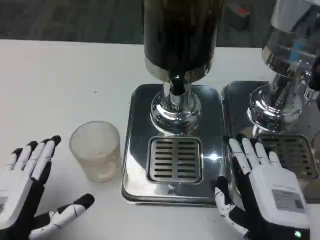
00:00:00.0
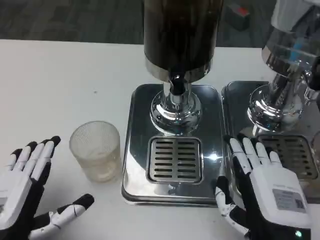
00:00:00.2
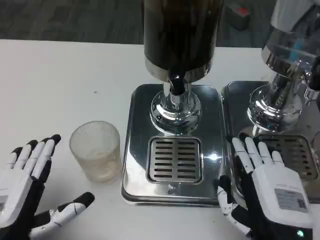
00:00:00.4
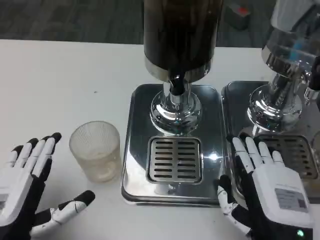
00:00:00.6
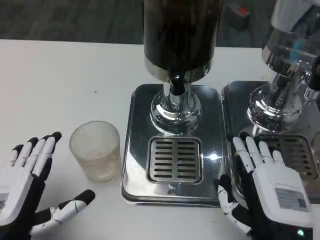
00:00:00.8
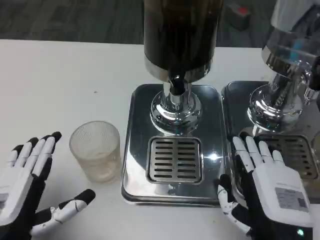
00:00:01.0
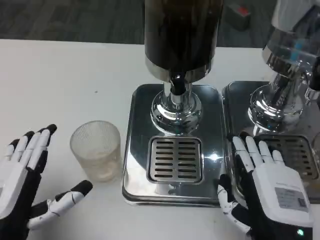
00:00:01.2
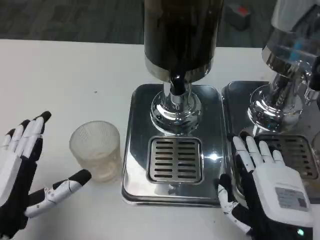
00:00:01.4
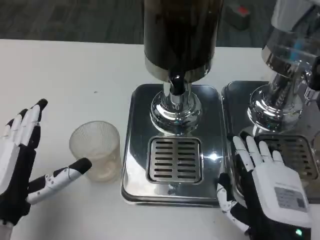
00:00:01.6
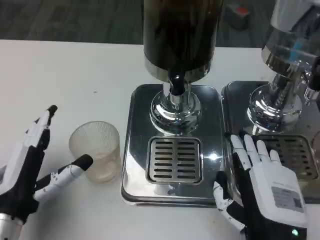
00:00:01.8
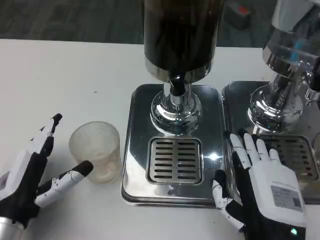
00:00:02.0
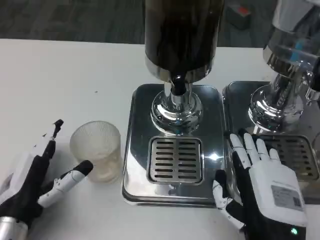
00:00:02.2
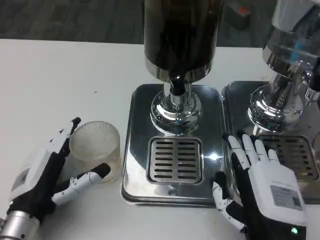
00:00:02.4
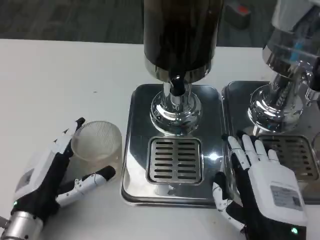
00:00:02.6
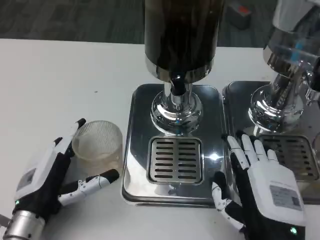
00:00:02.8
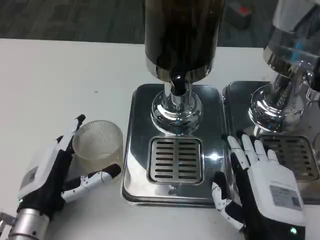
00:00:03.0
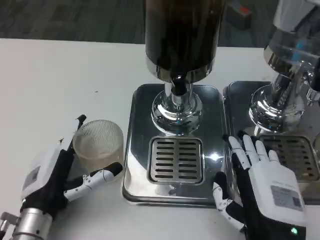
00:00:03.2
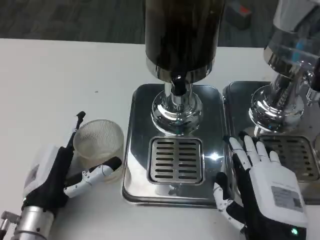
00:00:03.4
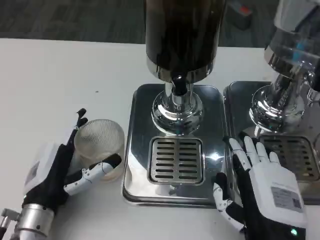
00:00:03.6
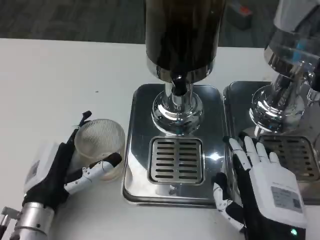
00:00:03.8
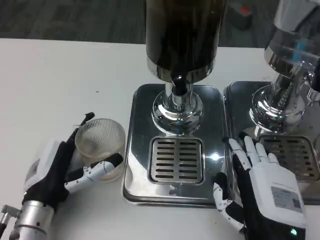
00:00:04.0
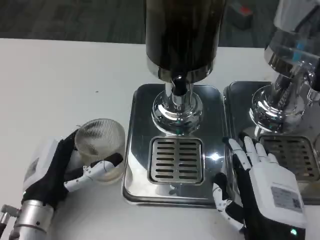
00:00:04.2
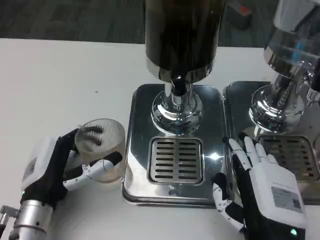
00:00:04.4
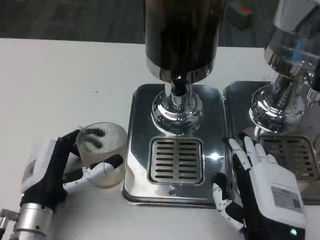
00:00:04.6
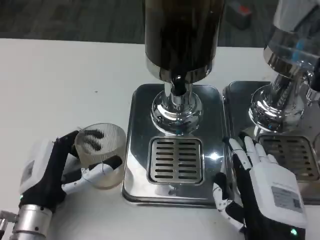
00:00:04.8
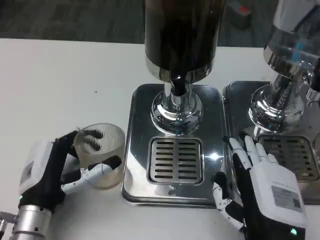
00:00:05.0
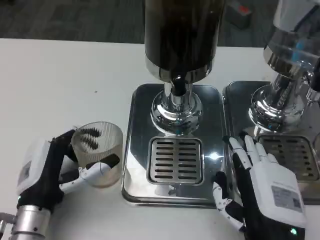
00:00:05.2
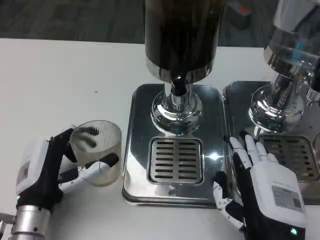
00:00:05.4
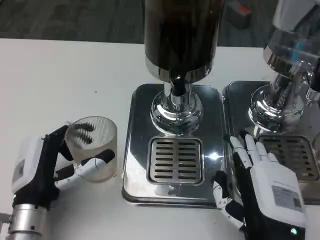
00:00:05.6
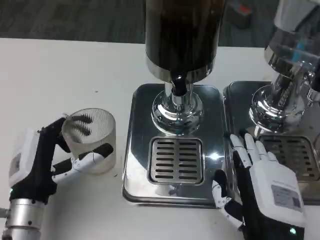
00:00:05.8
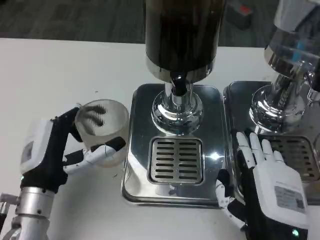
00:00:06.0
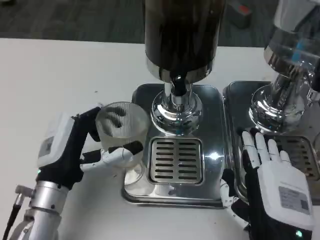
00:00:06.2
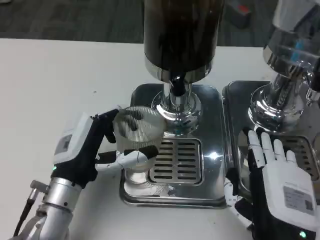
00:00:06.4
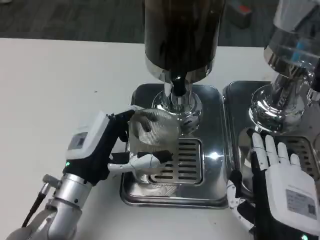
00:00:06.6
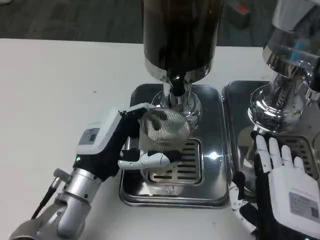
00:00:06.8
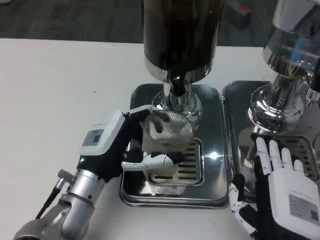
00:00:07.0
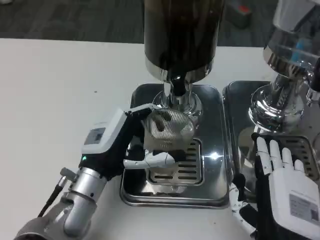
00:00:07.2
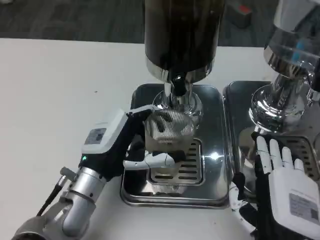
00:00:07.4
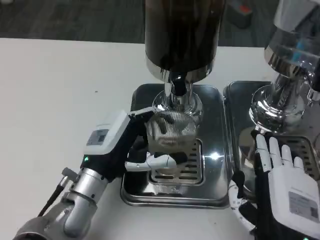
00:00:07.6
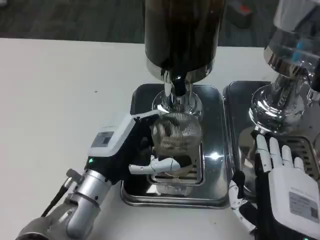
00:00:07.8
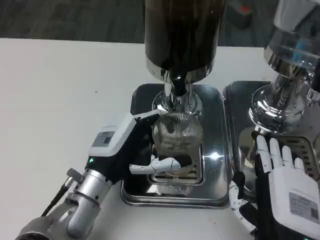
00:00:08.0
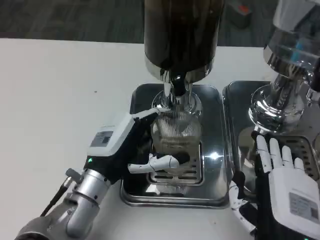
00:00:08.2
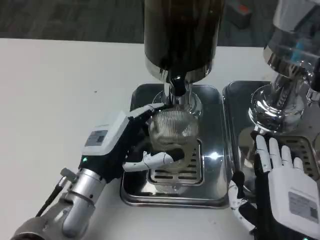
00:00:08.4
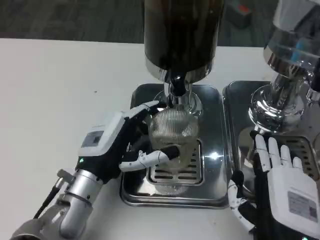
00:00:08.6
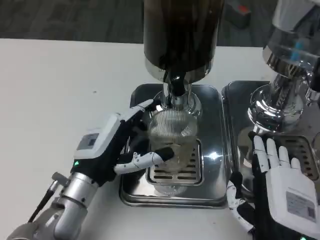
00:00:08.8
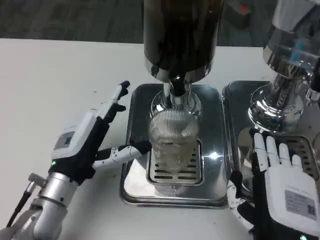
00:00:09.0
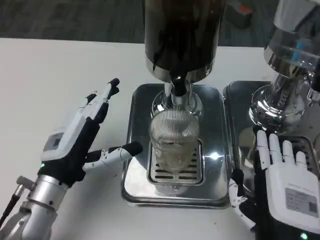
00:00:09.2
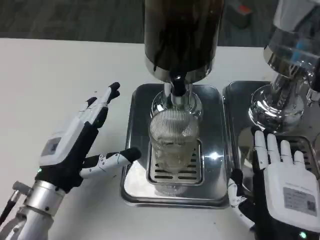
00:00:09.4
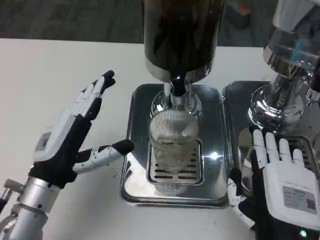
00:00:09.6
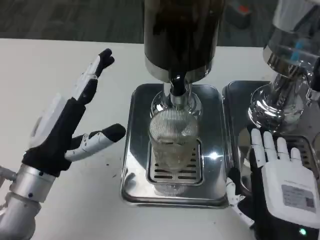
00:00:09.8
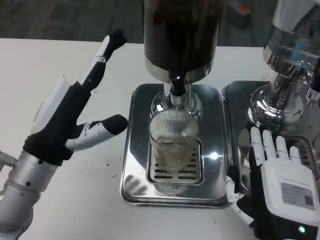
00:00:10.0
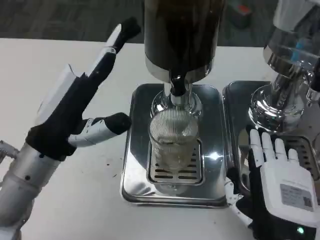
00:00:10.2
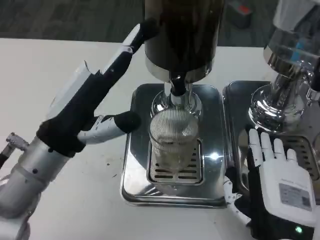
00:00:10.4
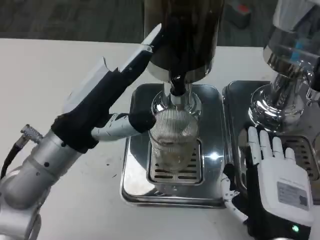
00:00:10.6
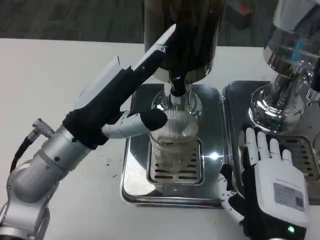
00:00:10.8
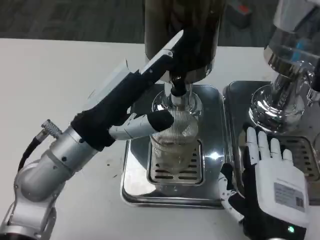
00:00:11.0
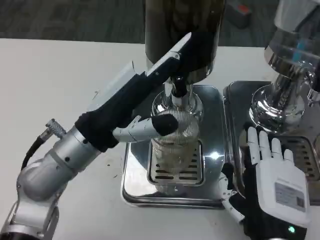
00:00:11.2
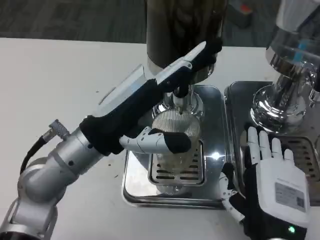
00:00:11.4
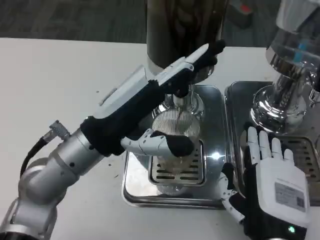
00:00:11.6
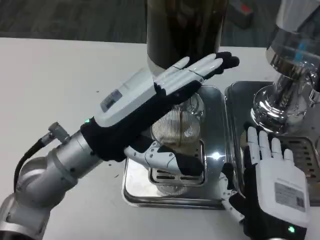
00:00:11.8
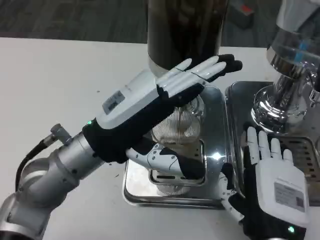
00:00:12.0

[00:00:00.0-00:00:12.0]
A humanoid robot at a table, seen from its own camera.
Task of the whole recording: Grasp the cup under the faucet to collect the drink, then remove the cup.
00:00:00.0 to 00:00:01.6: The hands move only a little.
00:00:01.6 to 00:00:03.0: The left hand moves roughly 5 cm.
00:00:03.0 to 00:00:06.0: The hands move only a little.
00:00:06.0 to 00:00:07.6: The left hand shifts approximately 5 cm to the right.
00:00:09.0 to 00:00:10.4: The left hand goes about 10 cm upward.

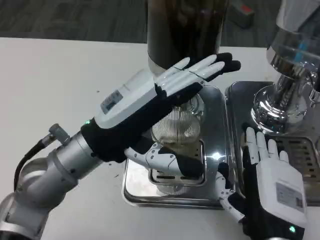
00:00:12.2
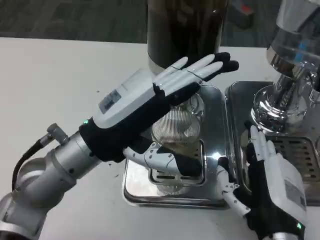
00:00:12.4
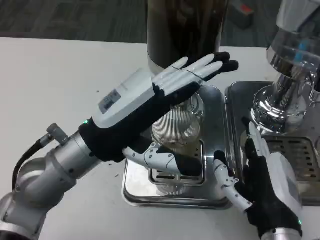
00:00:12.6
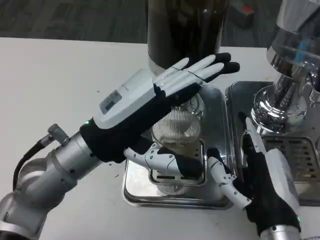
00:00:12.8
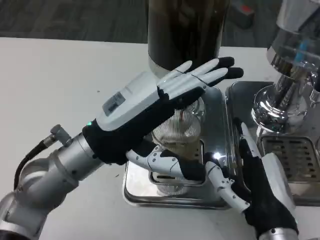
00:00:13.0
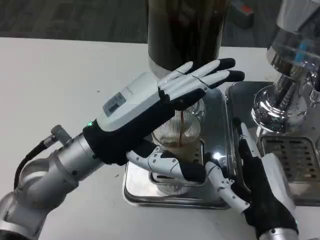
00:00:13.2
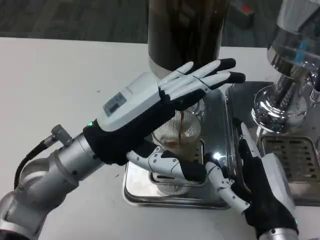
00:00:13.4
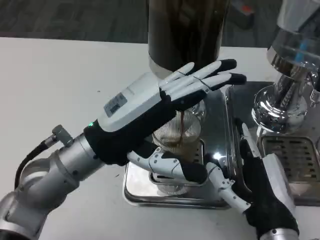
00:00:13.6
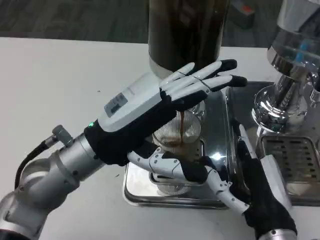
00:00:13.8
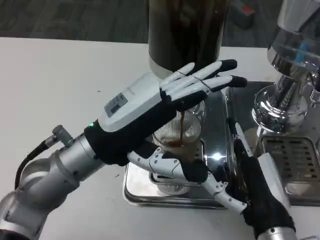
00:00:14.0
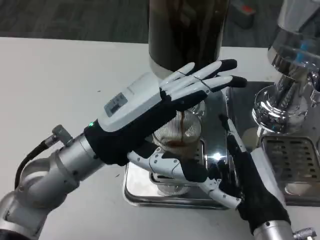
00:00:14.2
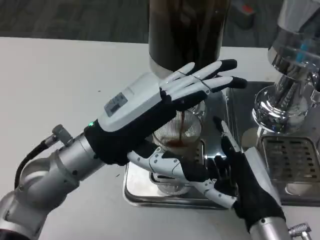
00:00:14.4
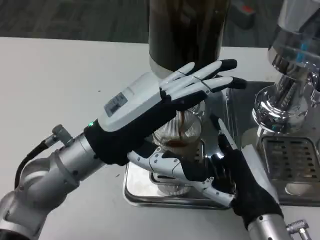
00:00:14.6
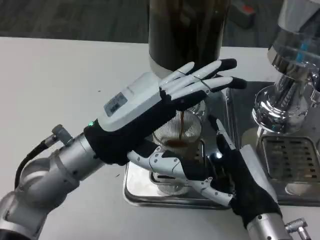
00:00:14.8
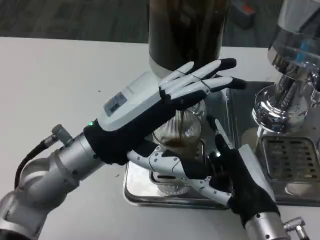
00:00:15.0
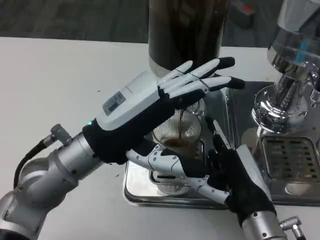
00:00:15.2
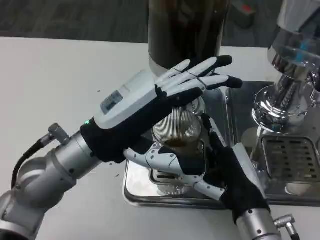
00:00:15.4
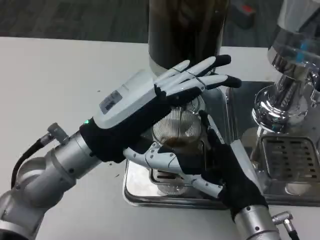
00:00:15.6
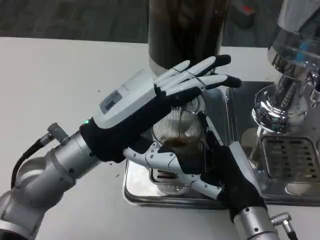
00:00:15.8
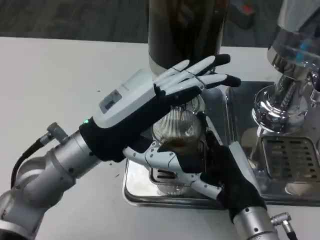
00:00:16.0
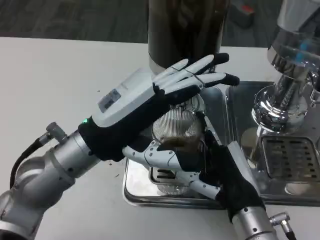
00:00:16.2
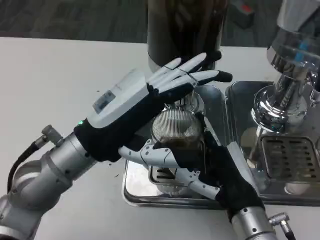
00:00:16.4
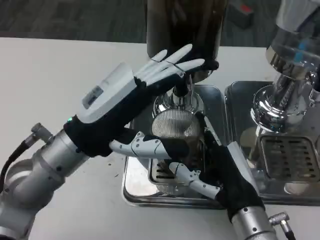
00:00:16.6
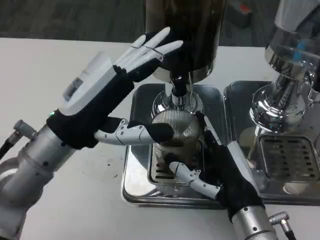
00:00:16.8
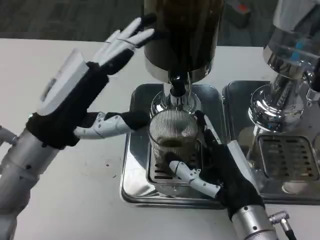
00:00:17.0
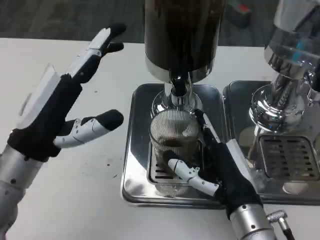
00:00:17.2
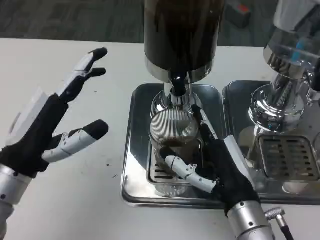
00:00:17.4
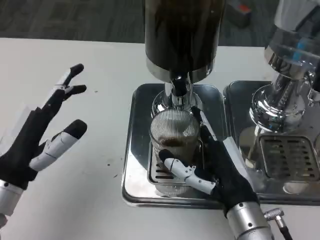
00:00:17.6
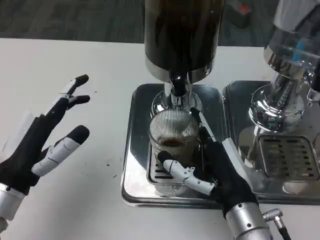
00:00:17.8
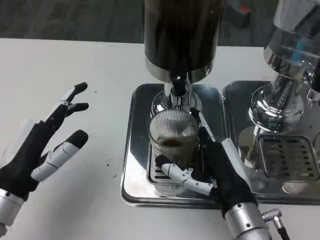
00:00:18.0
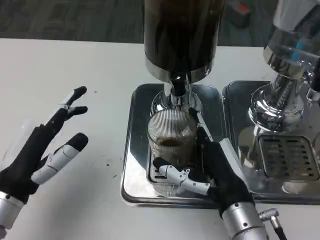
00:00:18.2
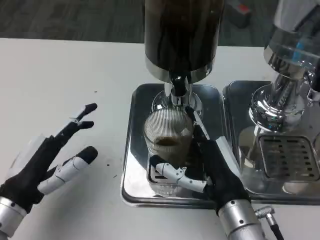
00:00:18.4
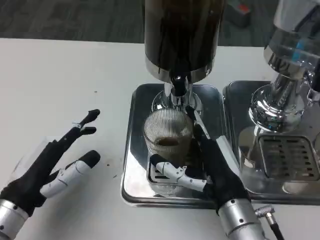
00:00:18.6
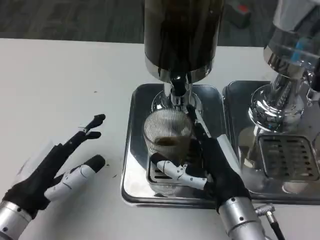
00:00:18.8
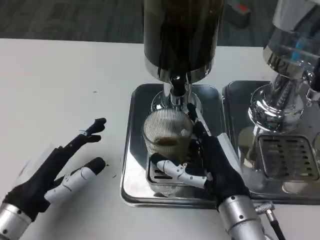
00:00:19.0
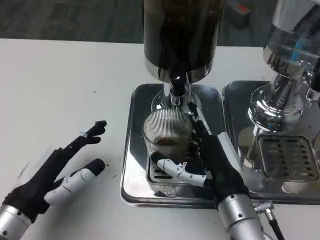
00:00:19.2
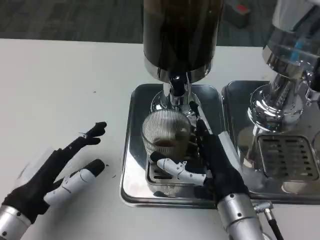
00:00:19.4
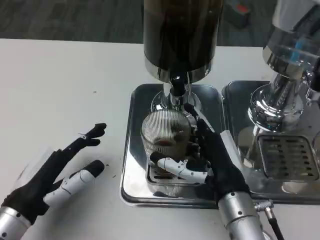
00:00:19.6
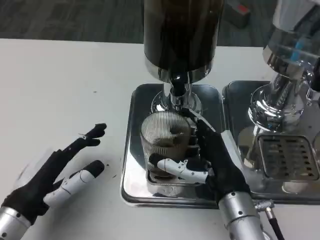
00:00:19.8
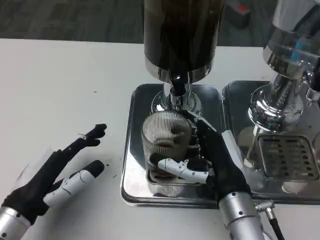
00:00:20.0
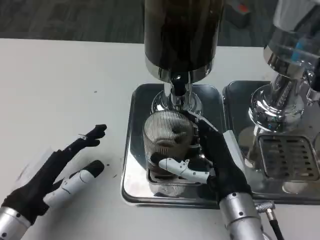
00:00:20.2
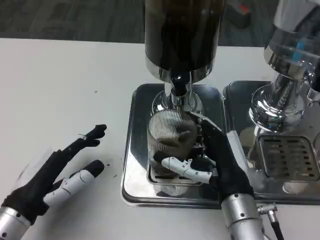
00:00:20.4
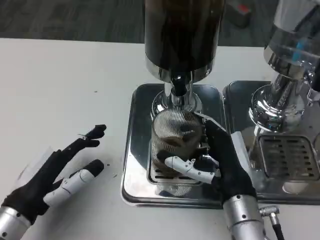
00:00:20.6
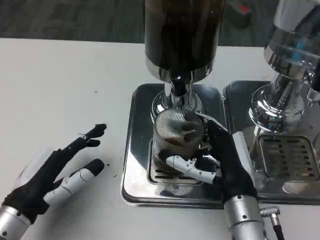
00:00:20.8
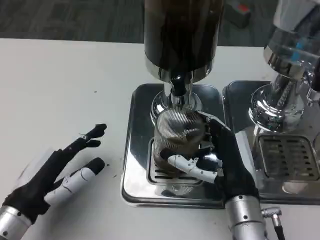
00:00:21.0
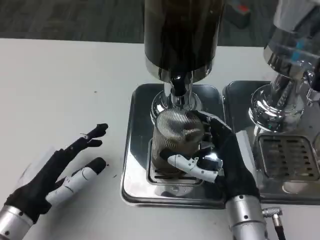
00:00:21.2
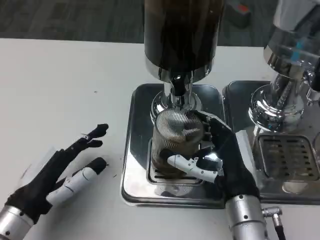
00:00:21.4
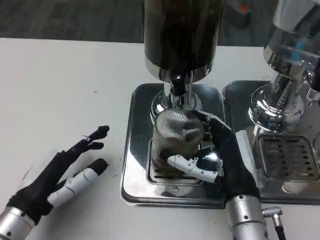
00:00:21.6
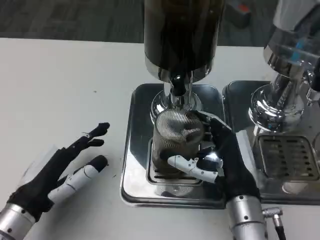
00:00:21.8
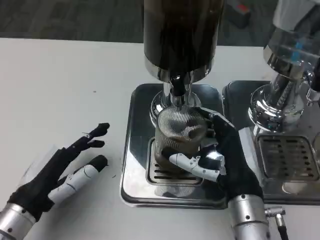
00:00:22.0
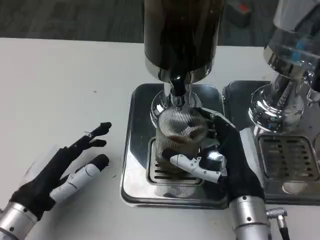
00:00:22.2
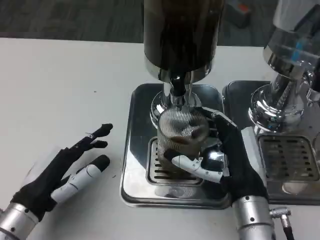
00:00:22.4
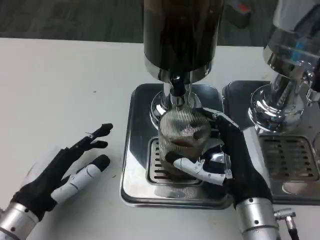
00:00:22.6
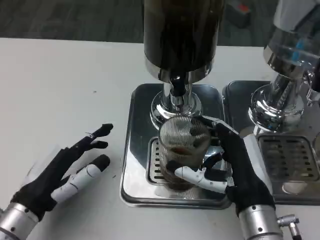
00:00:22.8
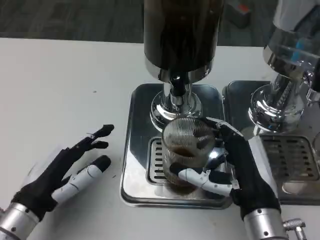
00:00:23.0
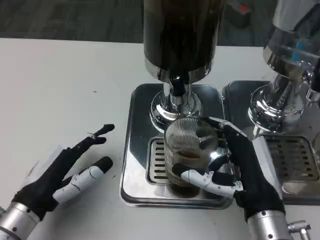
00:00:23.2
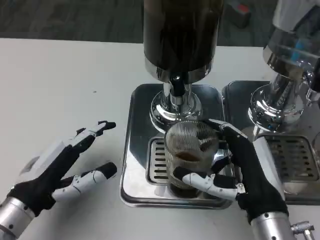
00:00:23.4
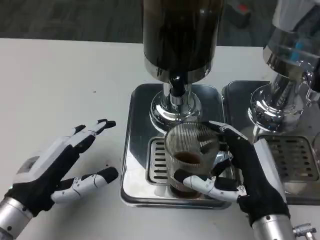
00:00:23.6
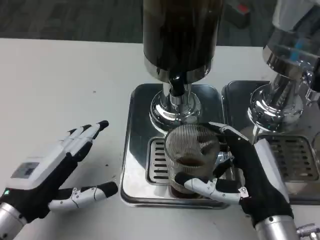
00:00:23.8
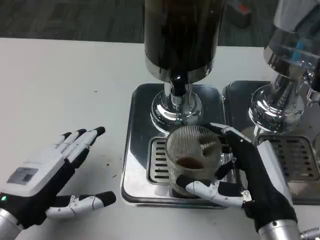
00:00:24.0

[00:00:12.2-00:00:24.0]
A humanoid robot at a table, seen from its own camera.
Task of the whole recording: Grasp the cup under the faucet to collect the drink, then remove the cup.
00:00:13.6 to 00:00:15.2: The hands stay close to where they were, moving slightly.
00:00:16.6 to 00:00:18.2: The left hand heads to the left, downward and backward, covering some 15 cm.
00:00:18.2 to 00:00:22.6: There are only small adjustments of the hands.
